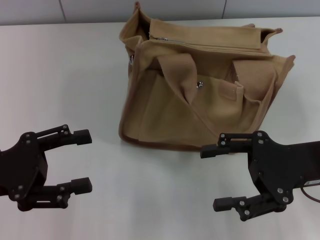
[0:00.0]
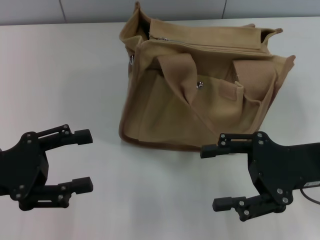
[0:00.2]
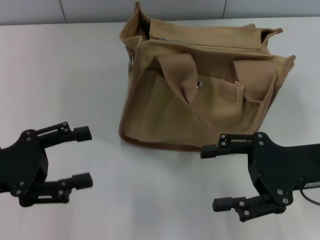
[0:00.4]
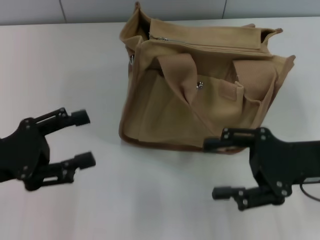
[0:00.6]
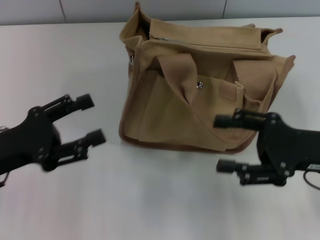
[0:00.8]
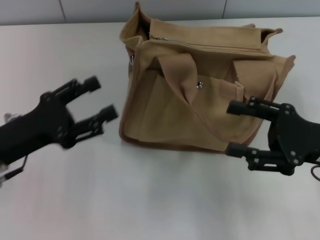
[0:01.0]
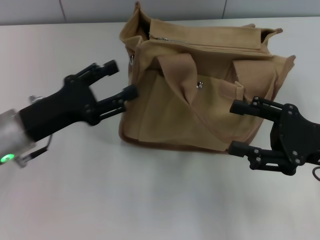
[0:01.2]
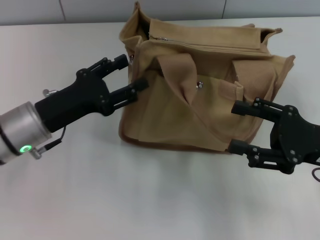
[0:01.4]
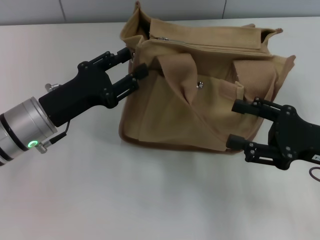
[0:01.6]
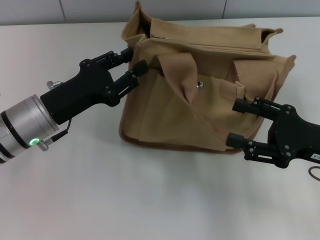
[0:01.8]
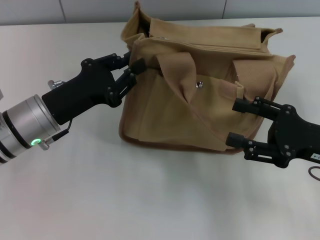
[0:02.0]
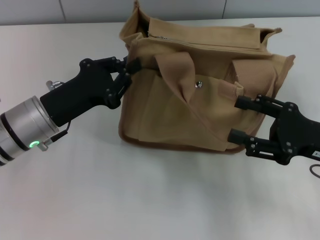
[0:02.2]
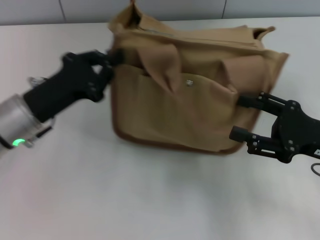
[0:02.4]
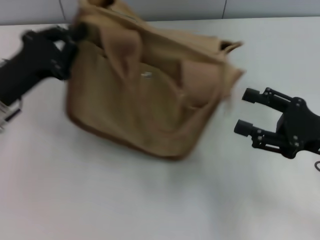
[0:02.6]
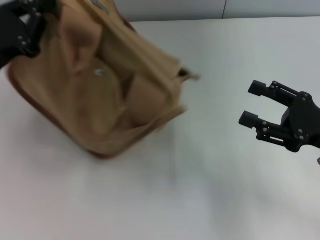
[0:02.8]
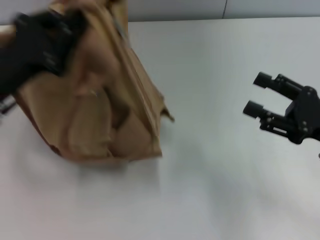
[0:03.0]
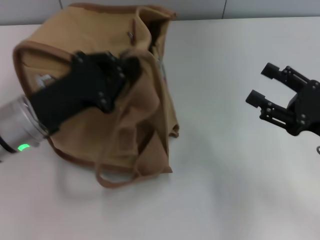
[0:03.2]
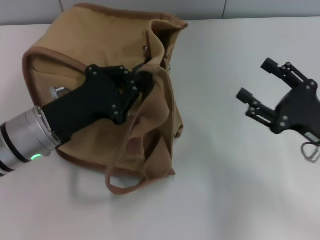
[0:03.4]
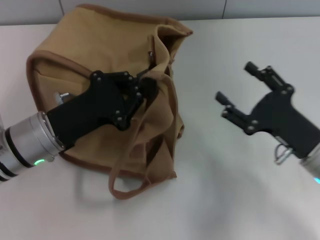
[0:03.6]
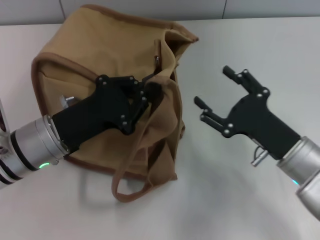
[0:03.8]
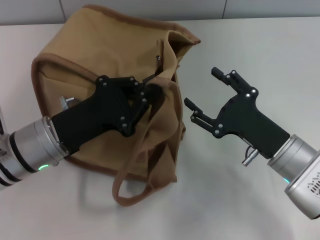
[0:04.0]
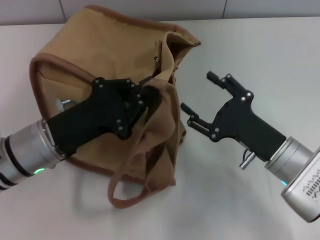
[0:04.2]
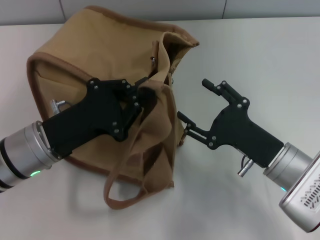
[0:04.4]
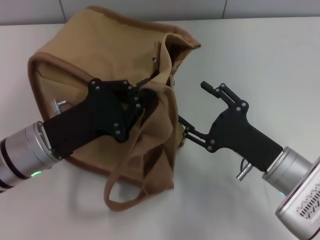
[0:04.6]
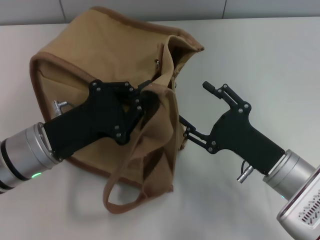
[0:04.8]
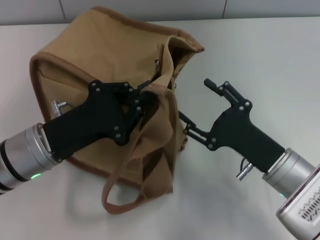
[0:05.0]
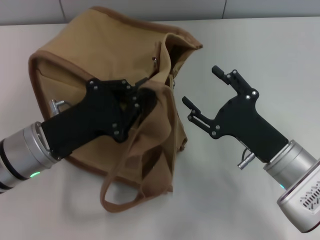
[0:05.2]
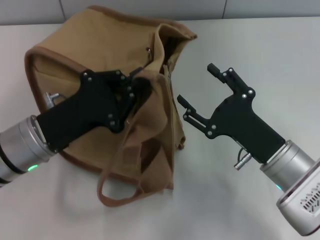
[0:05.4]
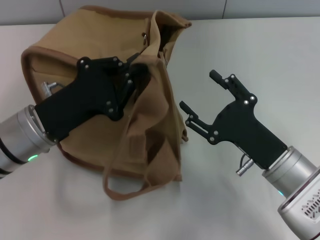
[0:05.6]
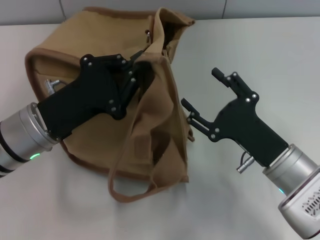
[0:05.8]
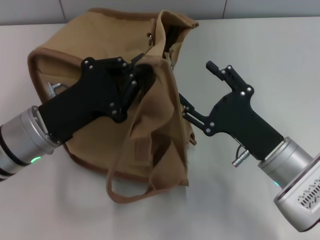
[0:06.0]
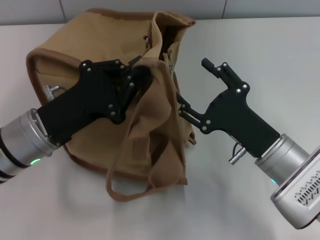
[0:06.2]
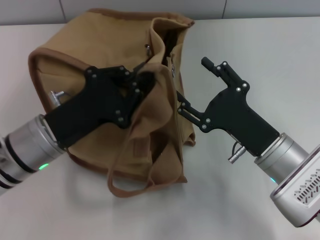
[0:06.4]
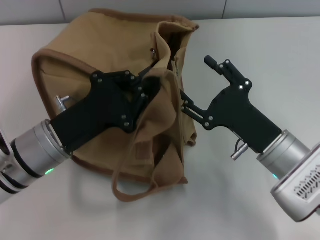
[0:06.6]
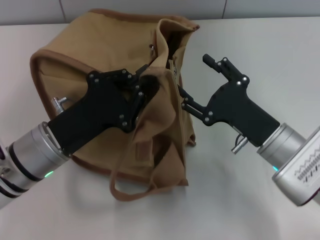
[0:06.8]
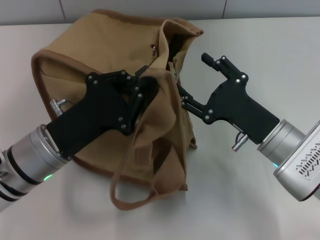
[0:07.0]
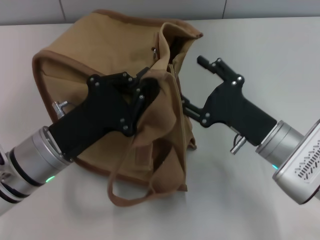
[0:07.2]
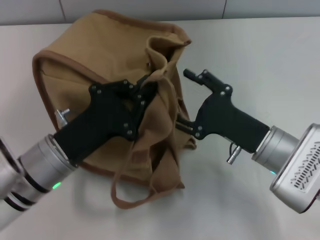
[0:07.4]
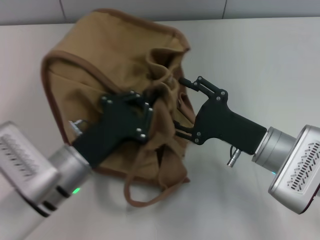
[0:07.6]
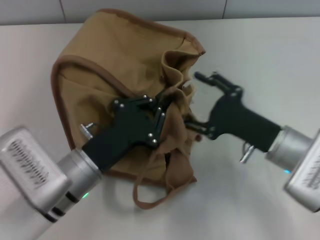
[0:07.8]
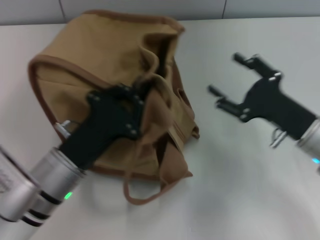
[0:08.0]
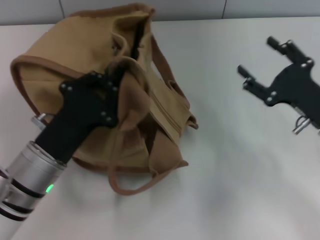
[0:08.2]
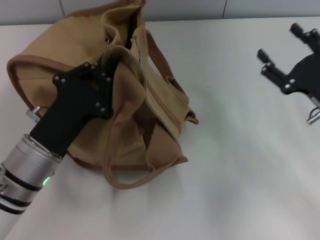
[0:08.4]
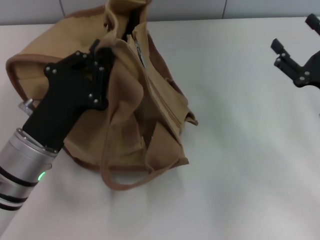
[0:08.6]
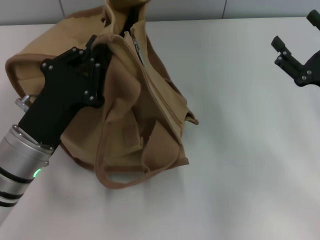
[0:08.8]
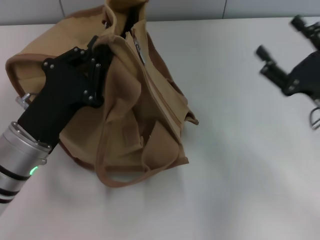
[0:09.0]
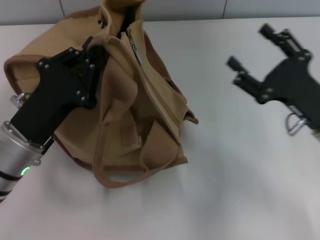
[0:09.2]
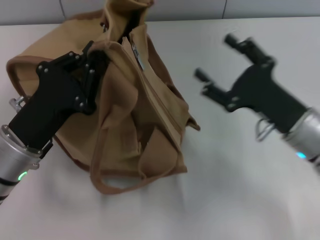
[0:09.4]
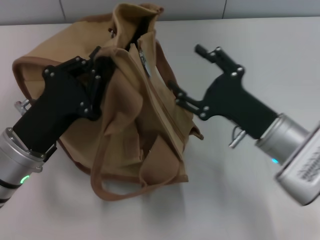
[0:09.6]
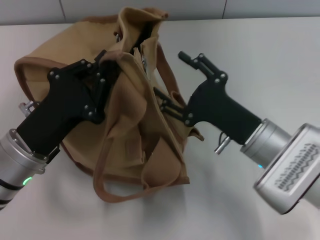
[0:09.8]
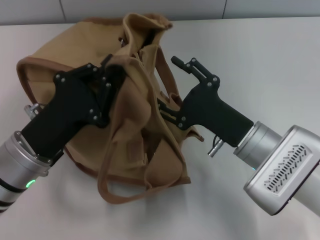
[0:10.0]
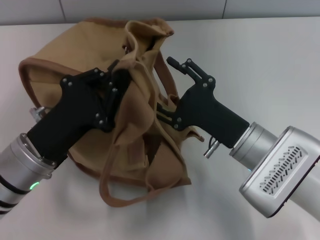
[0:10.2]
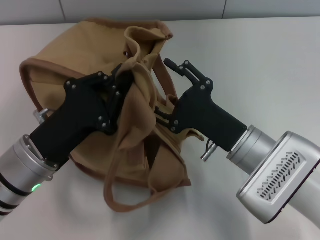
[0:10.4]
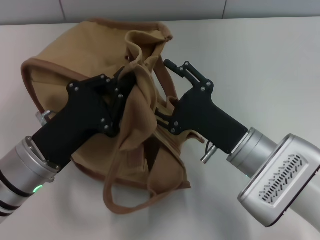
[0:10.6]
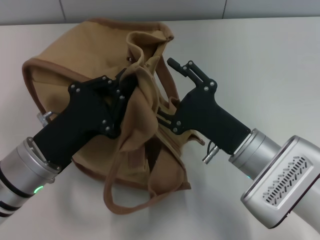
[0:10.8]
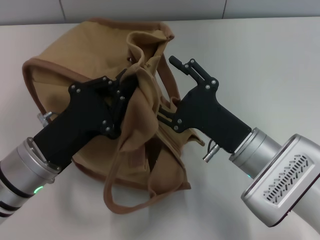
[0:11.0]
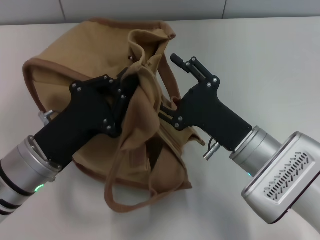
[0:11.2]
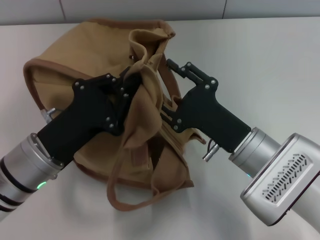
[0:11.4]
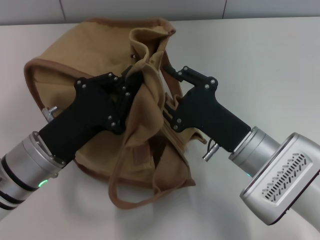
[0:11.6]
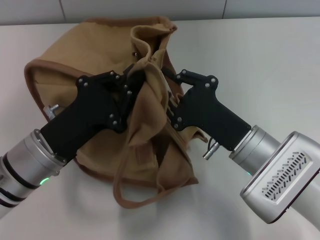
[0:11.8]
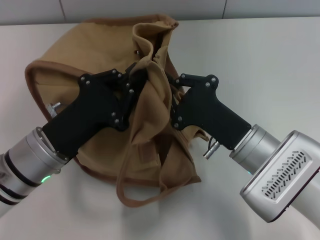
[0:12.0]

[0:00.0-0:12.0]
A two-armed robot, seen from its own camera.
0:00.0 to 0:01.6: The left gripper shifts approximately 10 cm to the right and forward.
0:01.6 to 0:03.0: The left gripper closes up.
0:03.0 to 0:04.4: The right gripper heads to the left and downward, covering some 10 cm. Meanwhile the left gripper moves about 5 cm.
0:06.0 to 0:07.6: The left gripper is displaced downward by roughly 5 cm.
0:07.6 to 0:09.0: The left gripper ends up roughly 5 cm from where it was; the right gripper shifts roughly 10 cm to the right.
0:09.0 to 0:10.4: The right gripper heads to the left, covering about 15 cm.
0:10.4 to 0:12.0: The right gripper closes its fingers.

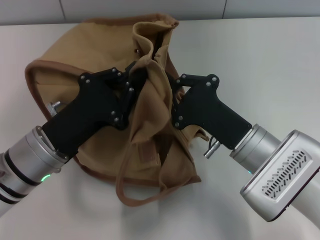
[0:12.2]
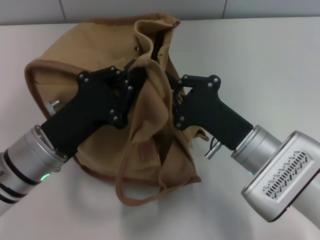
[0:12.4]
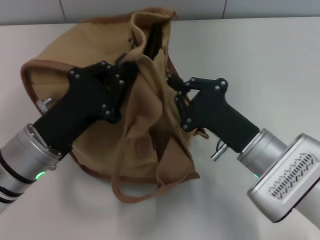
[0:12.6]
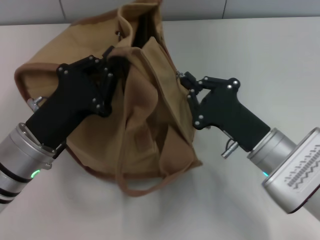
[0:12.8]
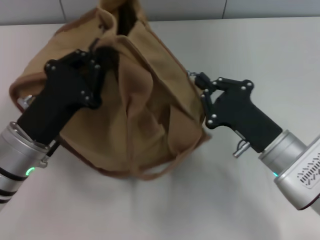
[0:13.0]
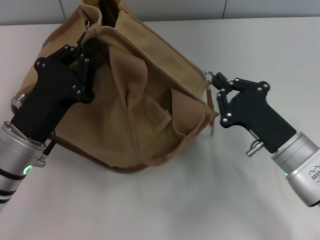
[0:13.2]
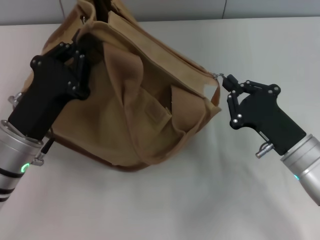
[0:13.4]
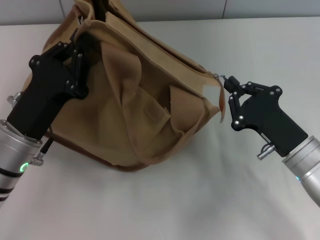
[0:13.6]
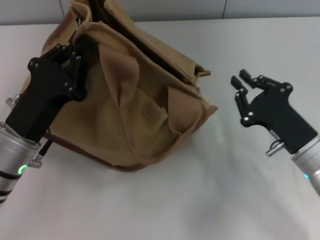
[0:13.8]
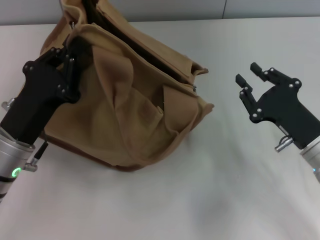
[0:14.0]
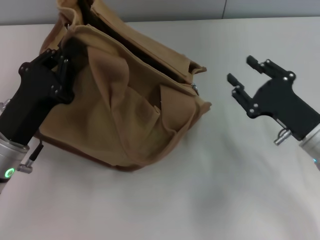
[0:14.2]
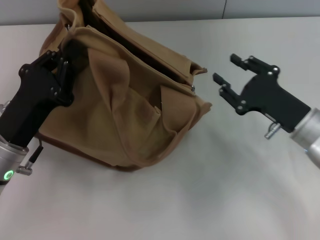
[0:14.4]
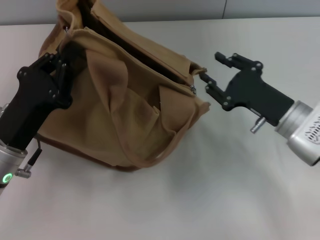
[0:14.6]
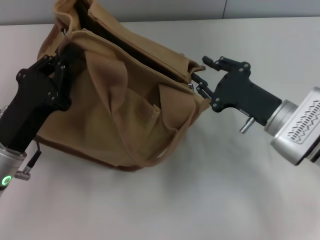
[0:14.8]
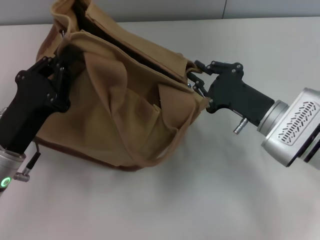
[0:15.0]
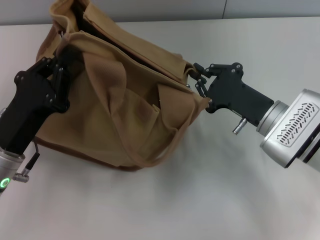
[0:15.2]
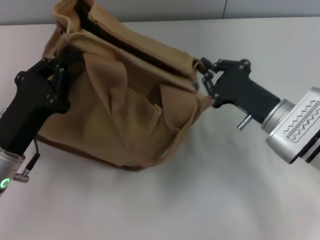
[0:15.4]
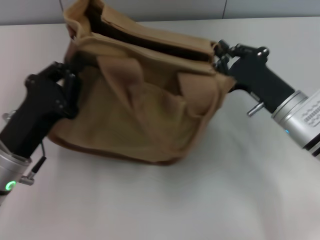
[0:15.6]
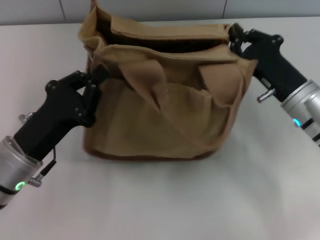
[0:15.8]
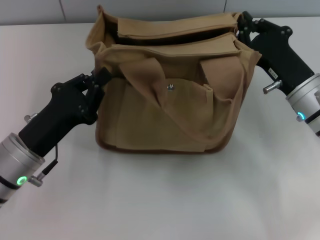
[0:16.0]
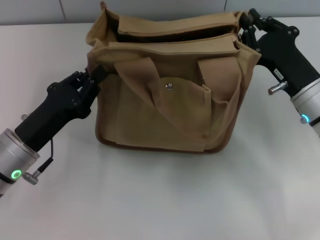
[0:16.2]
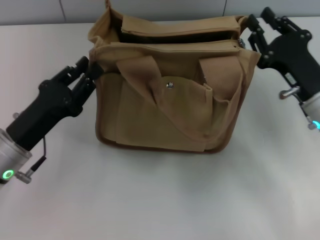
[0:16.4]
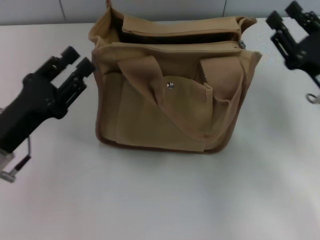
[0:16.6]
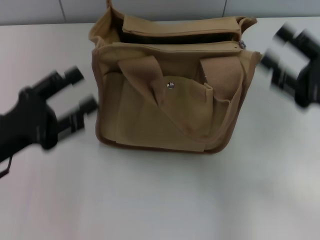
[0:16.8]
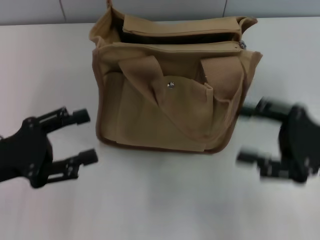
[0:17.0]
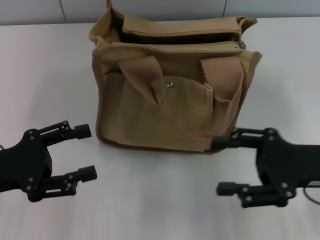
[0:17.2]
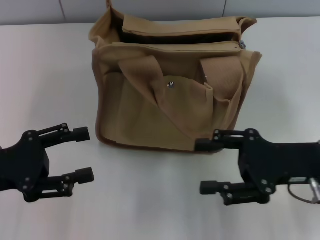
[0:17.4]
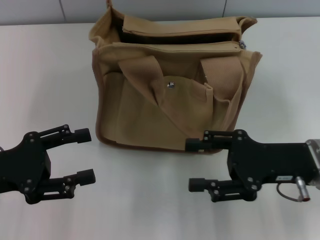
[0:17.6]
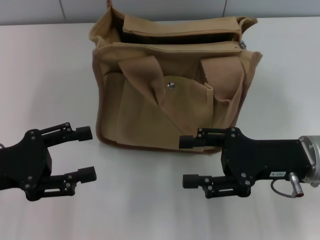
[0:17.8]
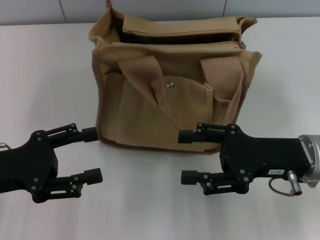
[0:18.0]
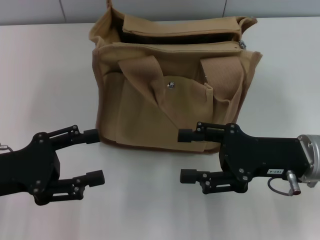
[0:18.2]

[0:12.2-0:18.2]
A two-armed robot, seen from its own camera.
Step, 0:13.8 to 0:16.2: Grab the bag with your left hand.
0:12.2 to 0:13.8: The right gripper goes some 10 cm to the right.
0:13.8 to 0:15.2: The right gripper moves forward, about 5 cm.
0:15.2 to 0:16.6: The right gripper is displaced to the right by about 10 cm.
0:16.6 to 0:18.2: The right gripper travels to the left by some 5 cm, and opens its fingers, while the left gripper moves approximately 5 cm, and opens.

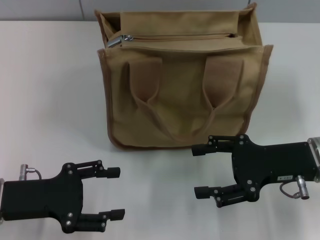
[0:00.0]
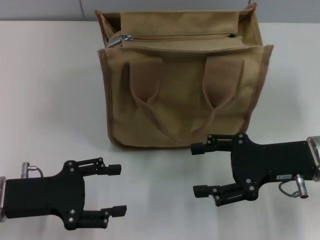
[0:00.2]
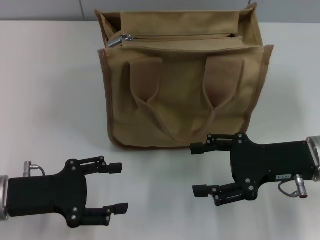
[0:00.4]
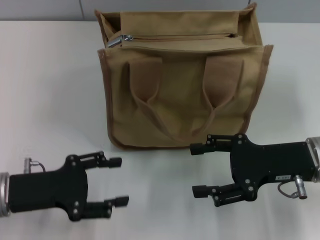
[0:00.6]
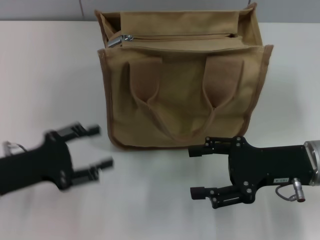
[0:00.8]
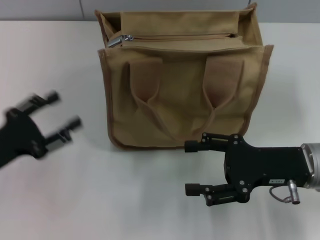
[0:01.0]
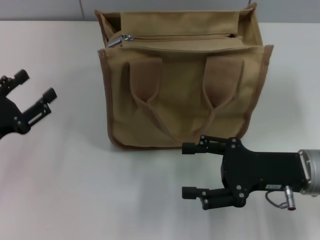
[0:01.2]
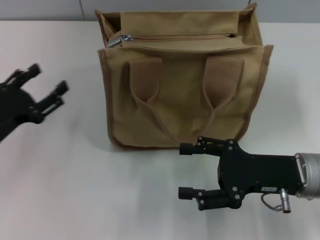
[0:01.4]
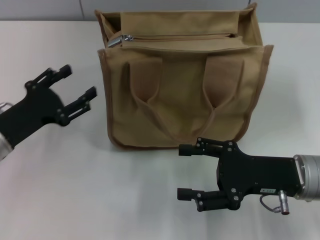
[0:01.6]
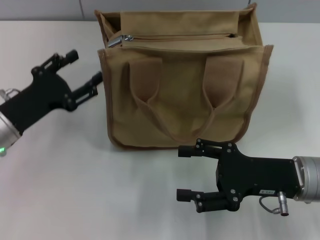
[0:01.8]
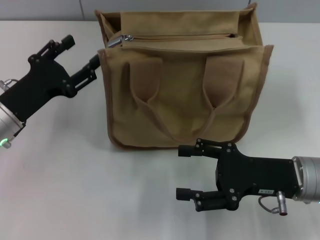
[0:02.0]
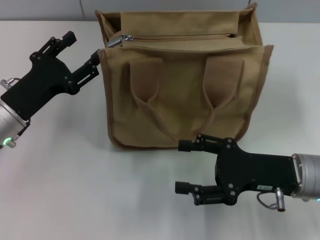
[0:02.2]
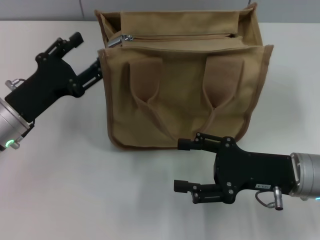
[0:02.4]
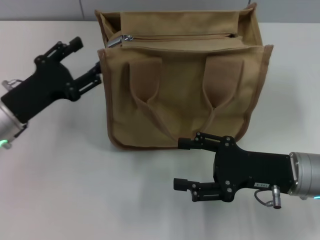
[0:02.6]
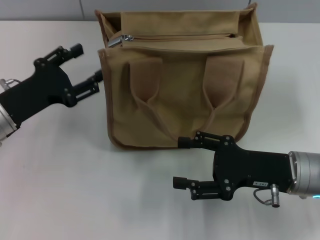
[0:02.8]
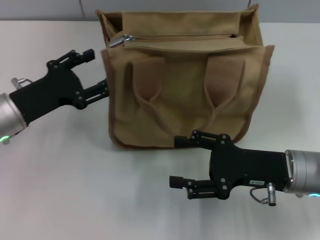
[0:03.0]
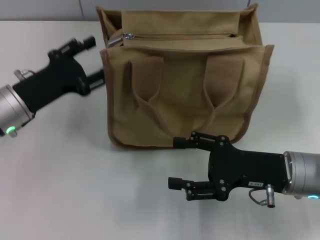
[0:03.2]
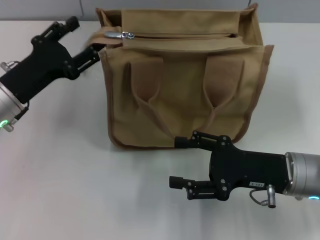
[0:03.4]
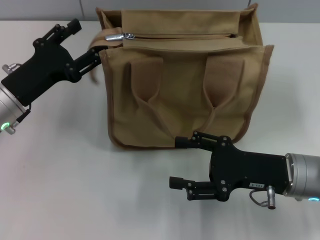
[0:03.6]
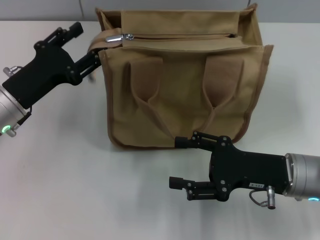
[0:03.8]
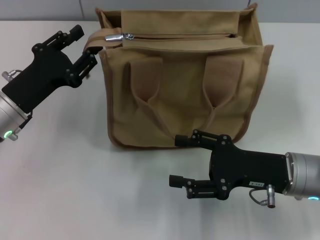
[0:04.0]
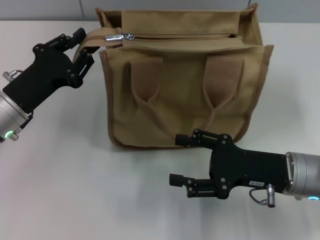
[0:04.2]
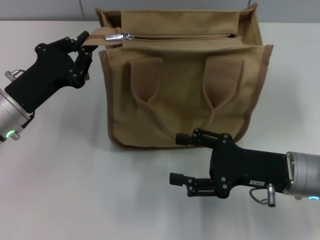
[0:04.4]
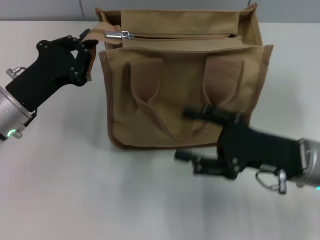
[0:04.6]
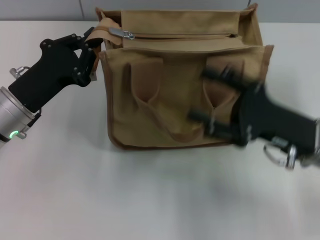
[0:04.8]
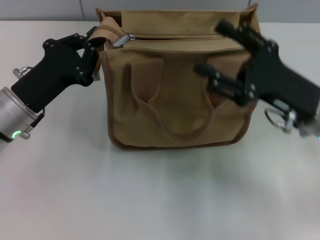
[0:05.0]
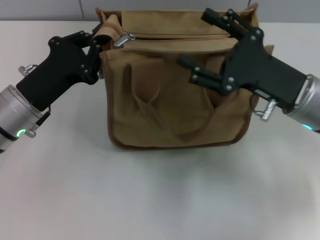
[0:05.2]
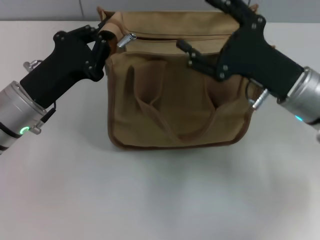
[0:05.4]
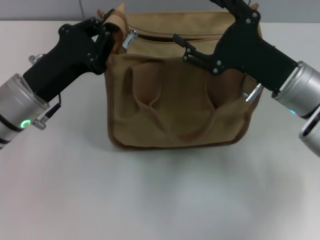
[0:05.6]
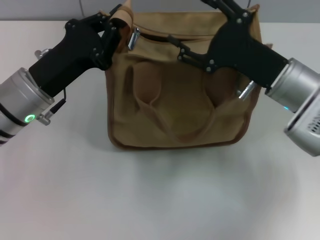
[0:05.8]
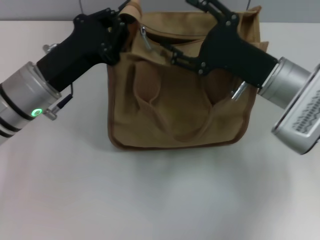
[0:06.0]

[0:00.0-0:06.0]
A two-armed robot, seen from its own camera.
0:00.0 to 0:01.6: The left gripper travels forward by approximately 5 cm.
0:01.6 to 0:03.0: The grippers move only a little.
0:03.0 to 0:04.4: The left gripper closes up.
0:04.4 to 0:06.0: The left gripper moves to the right, some 5 cm, and closes. The right gripper is displaced forward by roughly 10 cm.
